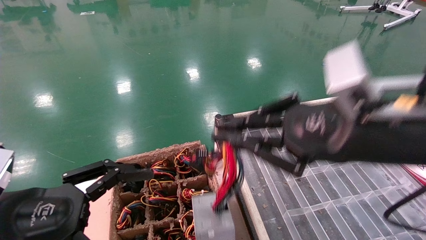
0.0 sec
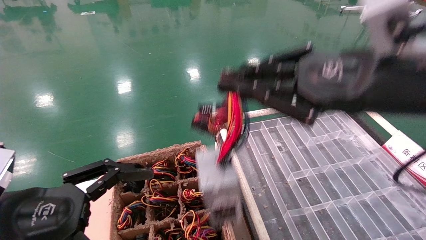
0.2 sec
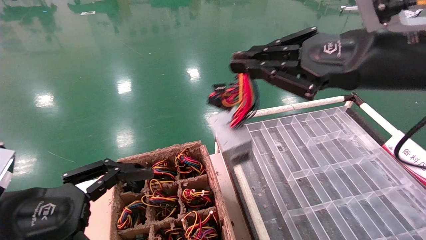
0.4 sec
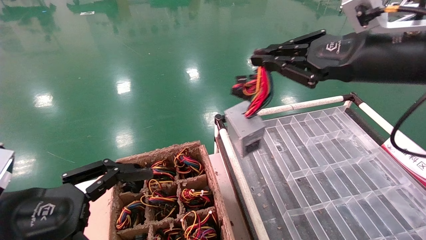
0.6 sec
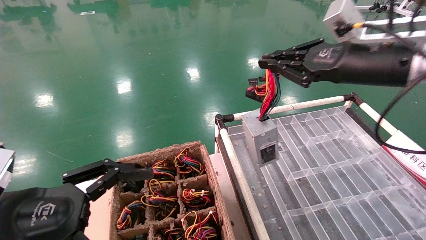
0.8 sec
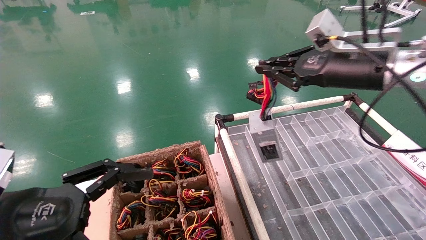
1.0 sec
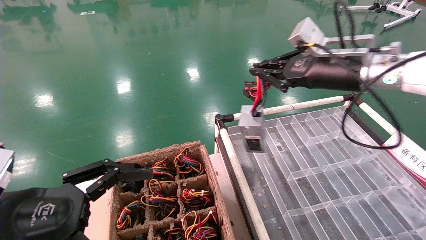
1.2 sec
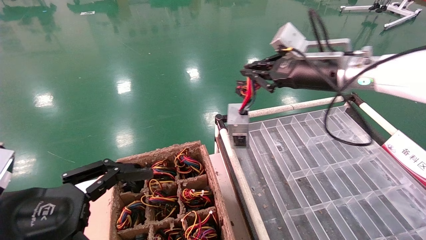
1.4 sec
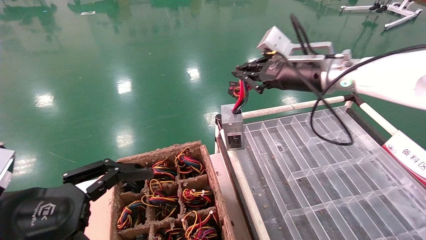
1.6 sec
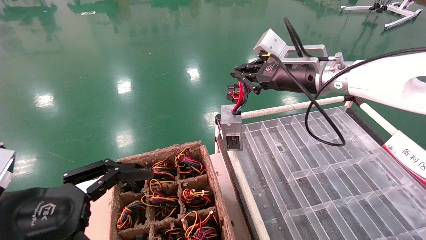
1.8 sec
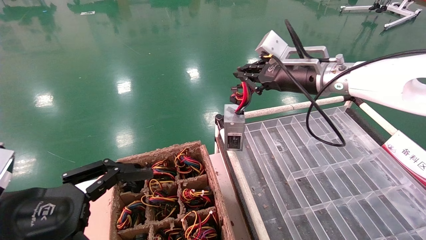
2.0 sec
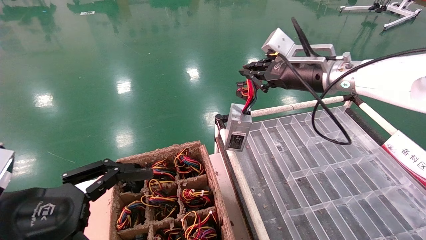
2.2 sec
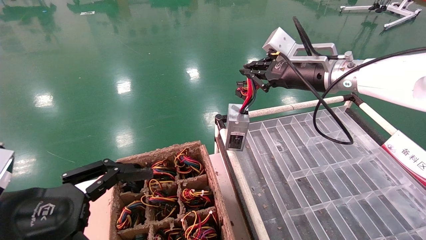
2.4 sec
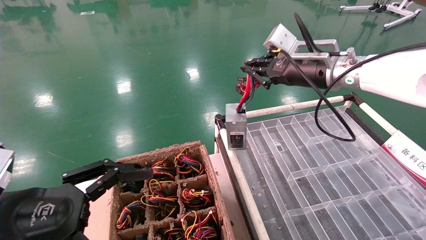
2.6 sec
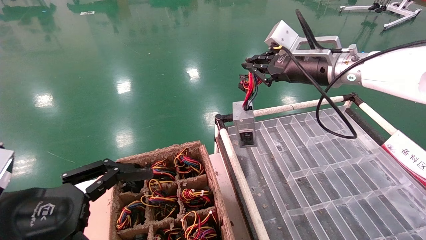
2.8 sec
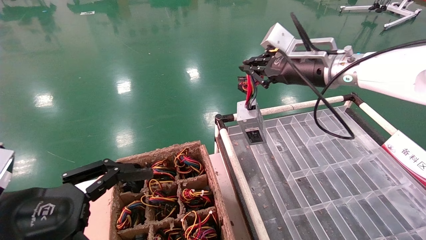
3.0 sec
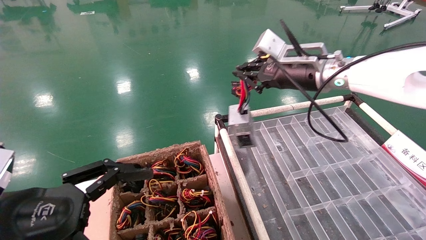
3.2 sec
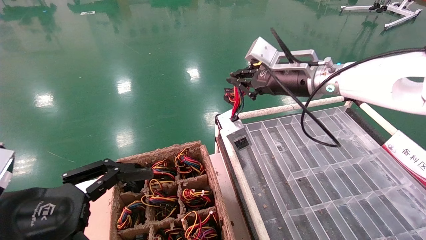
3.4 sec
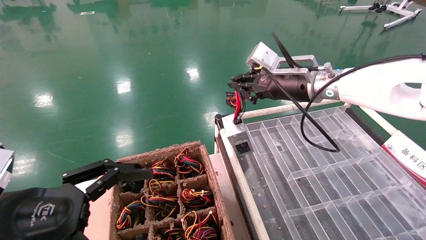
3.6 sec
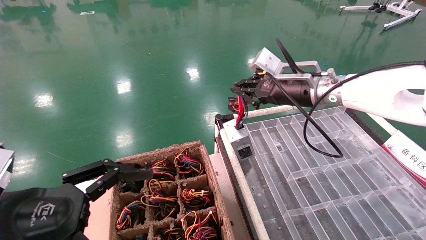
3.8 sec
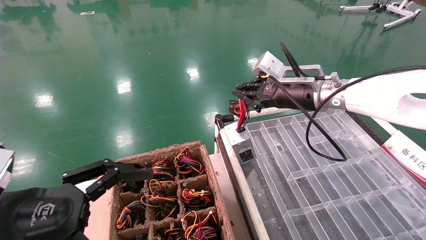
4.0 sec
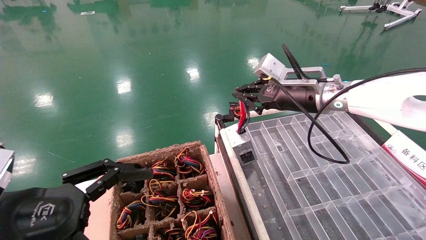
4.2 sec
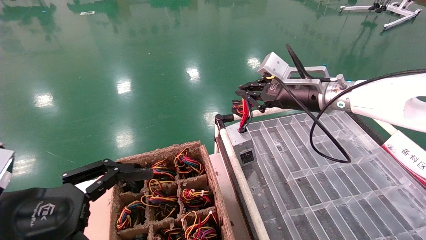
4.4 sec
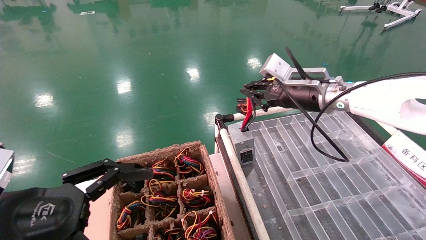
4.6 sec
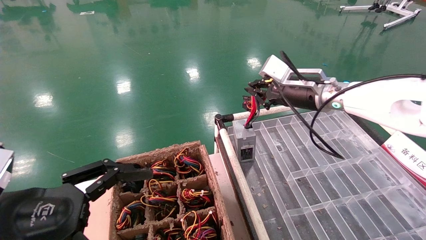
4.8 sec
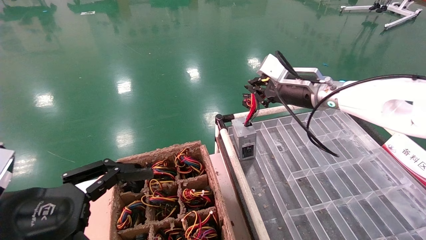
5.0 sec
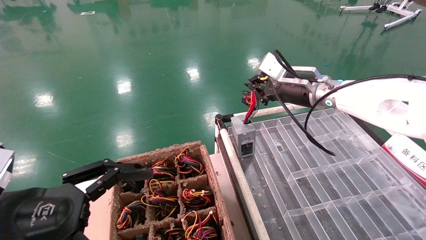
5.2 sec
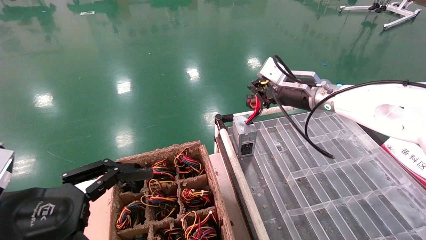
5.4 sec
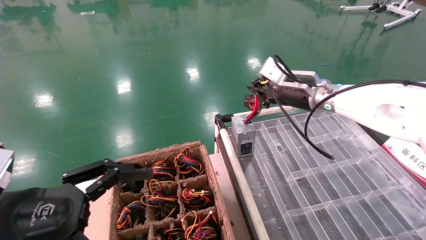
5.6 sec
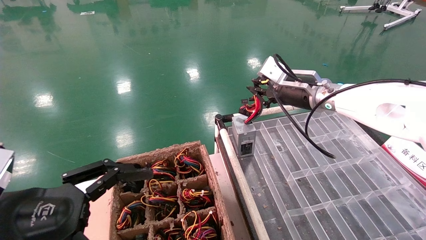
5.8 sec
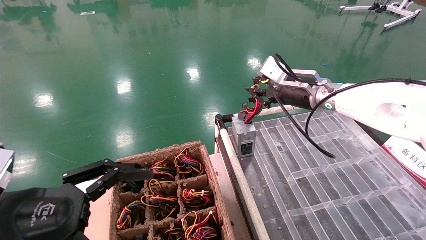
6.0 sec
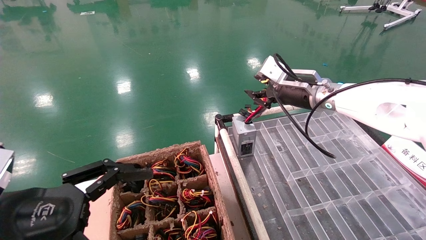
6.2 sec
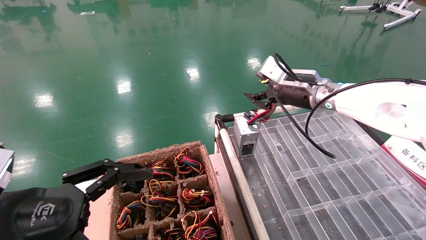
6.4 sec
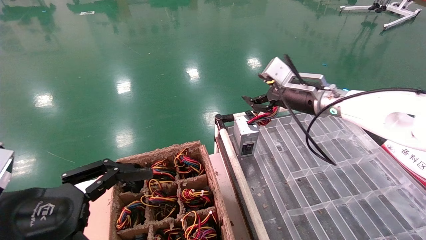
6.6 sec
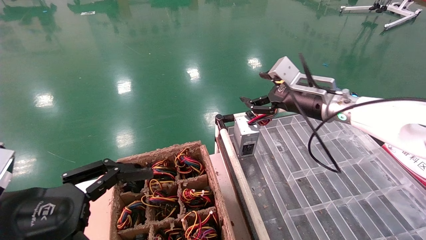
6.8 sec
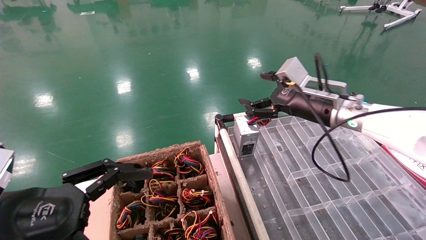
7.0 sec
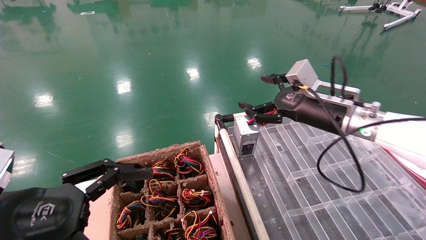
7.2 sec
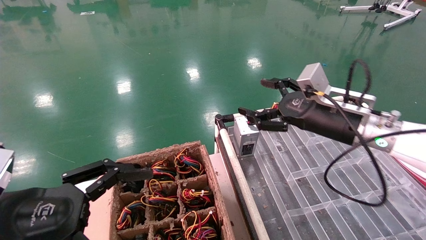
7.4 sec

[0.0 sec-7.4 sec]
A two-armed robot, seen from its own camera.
Step, 0.0 sec to 6.0 sec: Place the power supply on the operating table.
0.0 sec to 1.4 sec: The right gripper is displaced forward by approximately 20 cm.
1.4 sec to 4.4 sec: The grippers make only small movements.
4.4 sec to 6.0 sec: The grippers make only small movements.
6.0 sec to 7.4 sec: The right gripper goes some 10 cm backward, and opens.

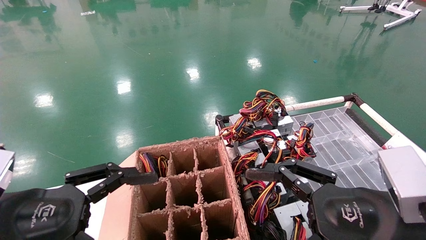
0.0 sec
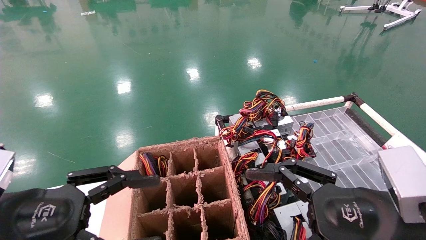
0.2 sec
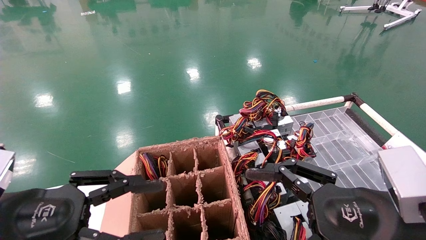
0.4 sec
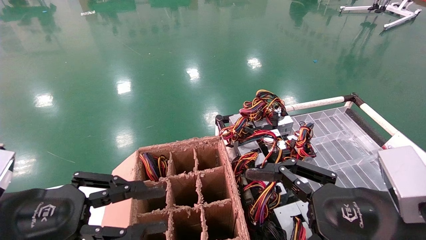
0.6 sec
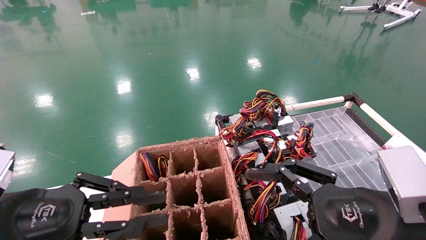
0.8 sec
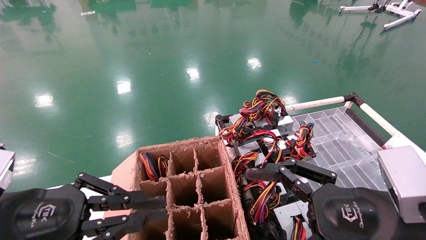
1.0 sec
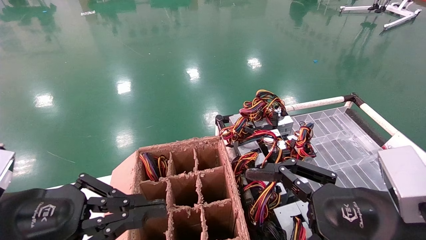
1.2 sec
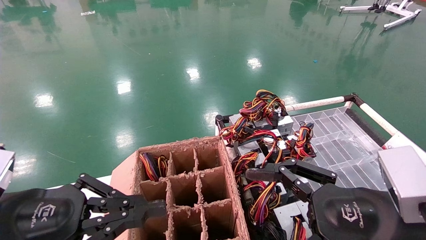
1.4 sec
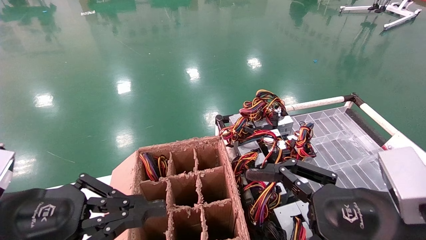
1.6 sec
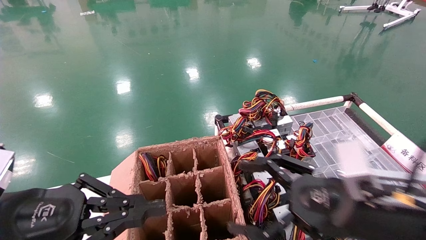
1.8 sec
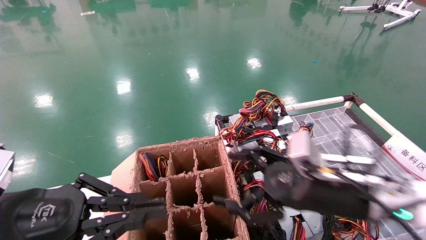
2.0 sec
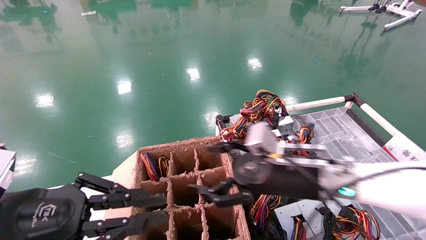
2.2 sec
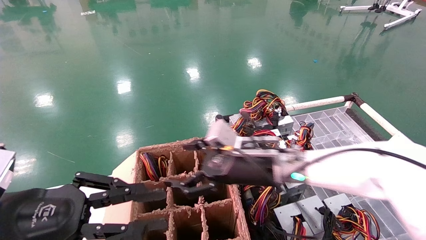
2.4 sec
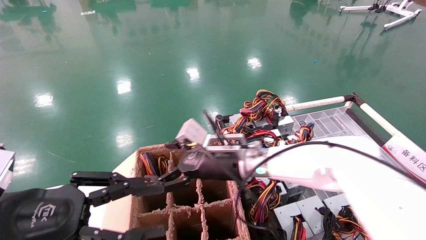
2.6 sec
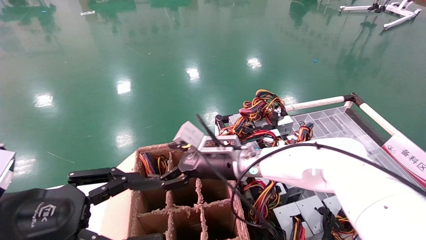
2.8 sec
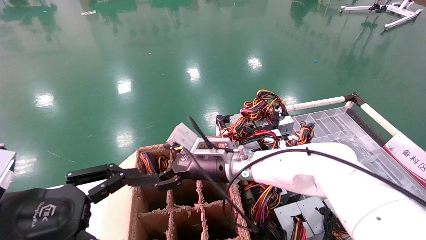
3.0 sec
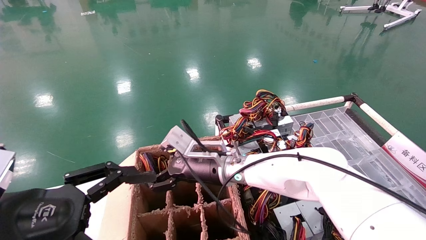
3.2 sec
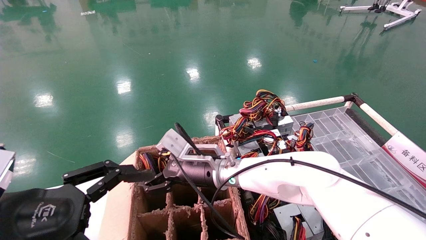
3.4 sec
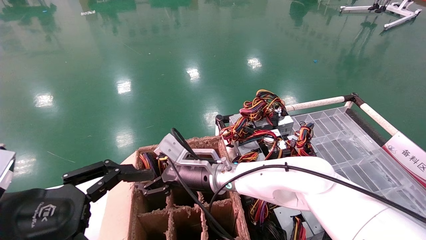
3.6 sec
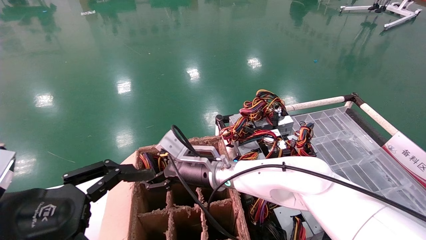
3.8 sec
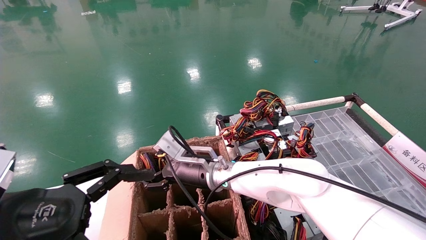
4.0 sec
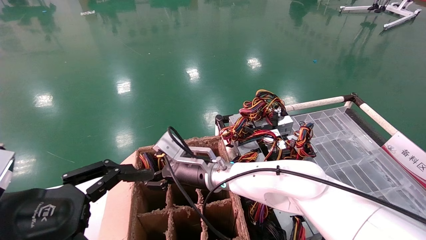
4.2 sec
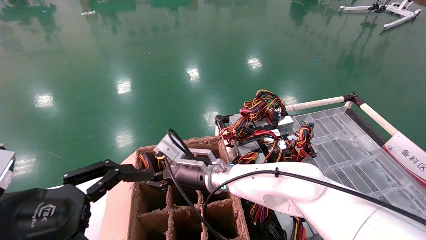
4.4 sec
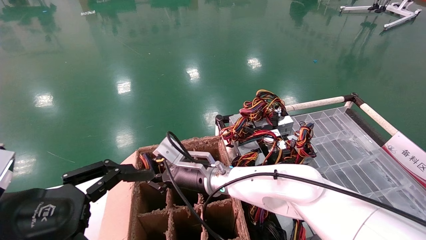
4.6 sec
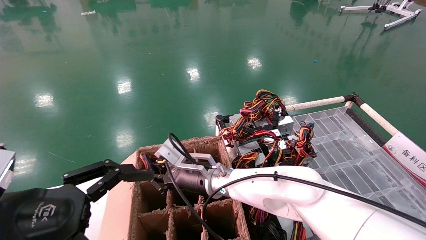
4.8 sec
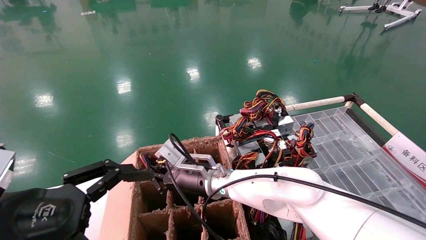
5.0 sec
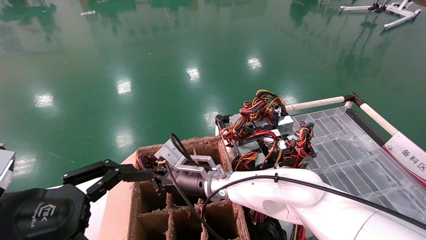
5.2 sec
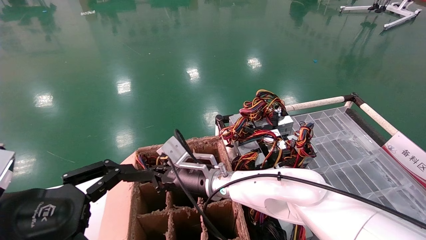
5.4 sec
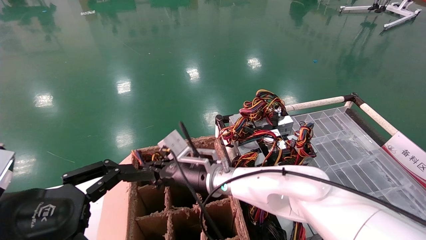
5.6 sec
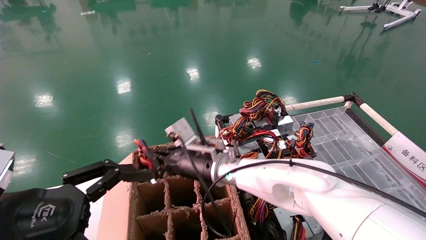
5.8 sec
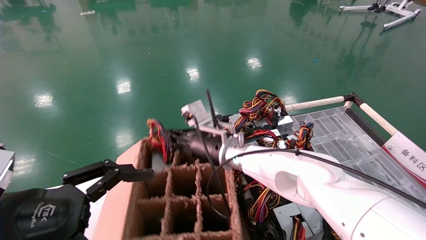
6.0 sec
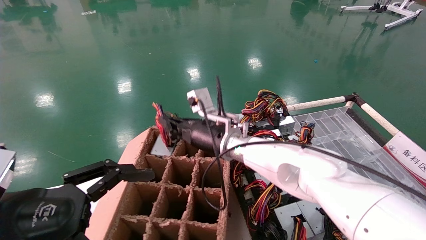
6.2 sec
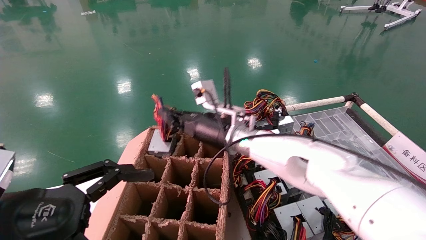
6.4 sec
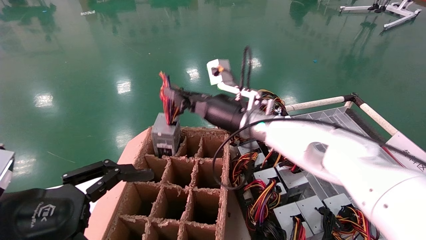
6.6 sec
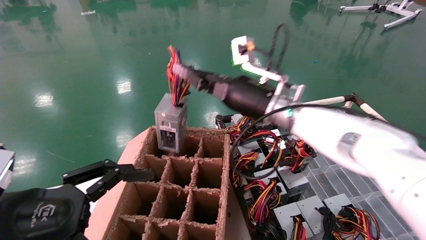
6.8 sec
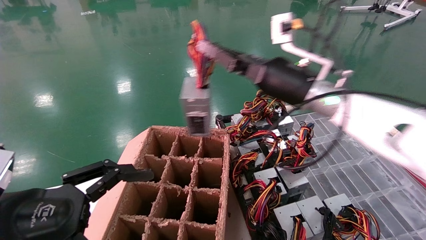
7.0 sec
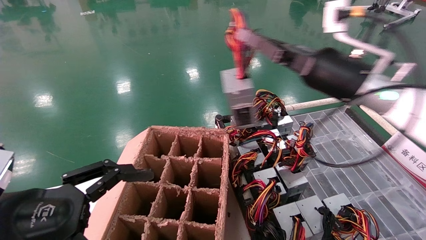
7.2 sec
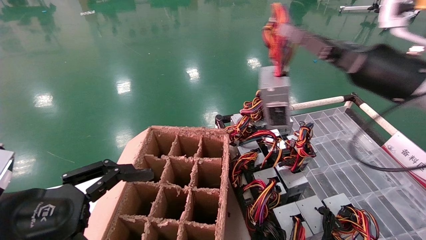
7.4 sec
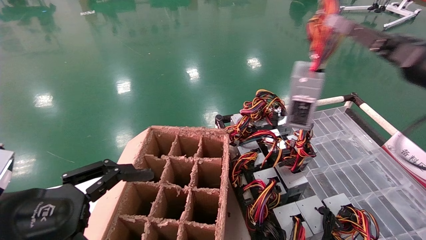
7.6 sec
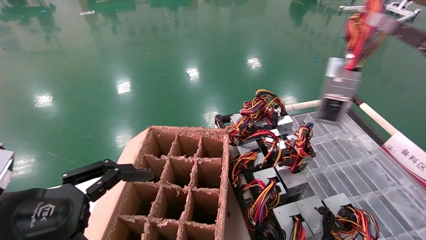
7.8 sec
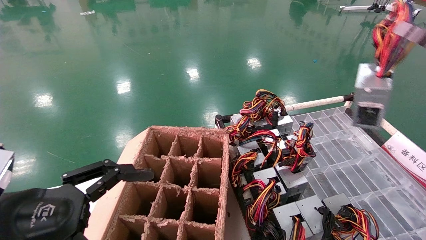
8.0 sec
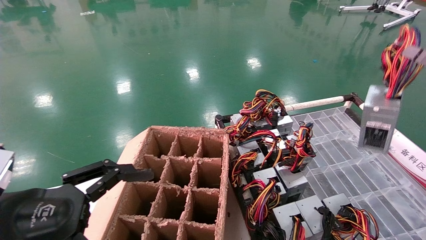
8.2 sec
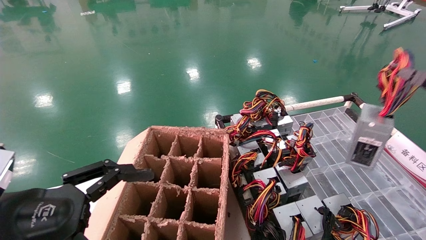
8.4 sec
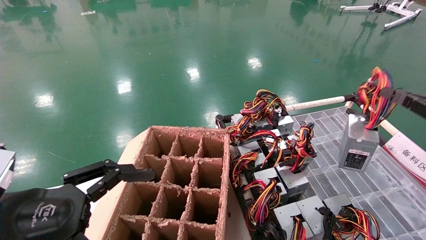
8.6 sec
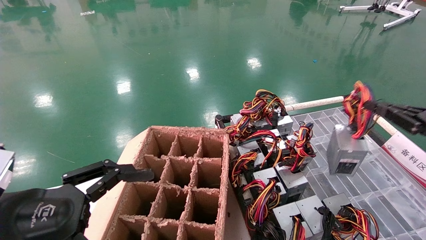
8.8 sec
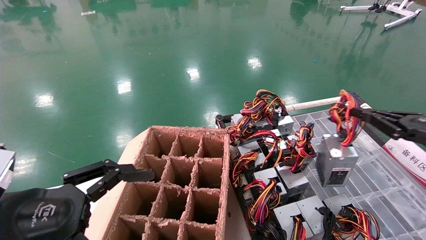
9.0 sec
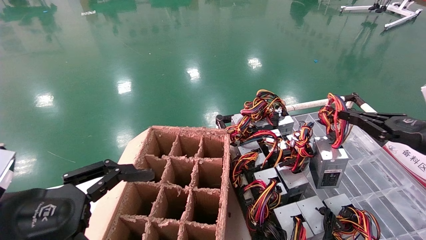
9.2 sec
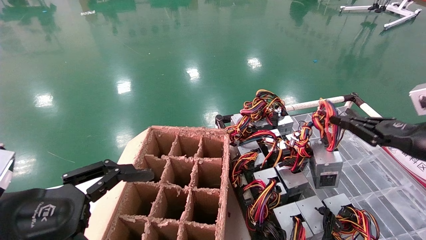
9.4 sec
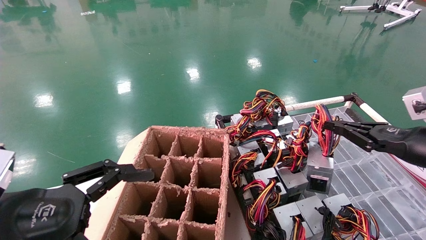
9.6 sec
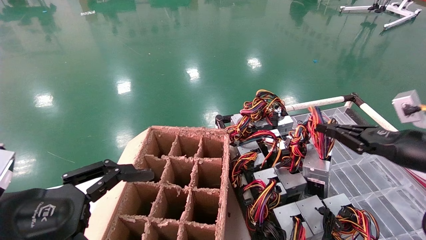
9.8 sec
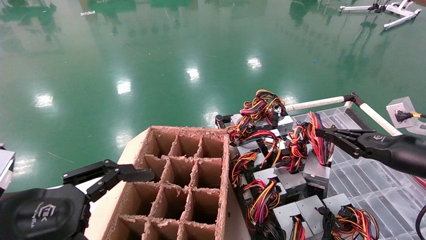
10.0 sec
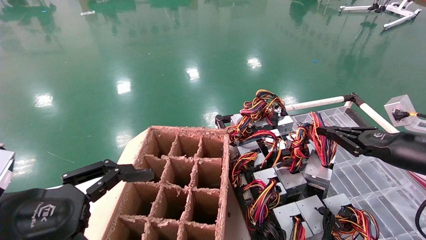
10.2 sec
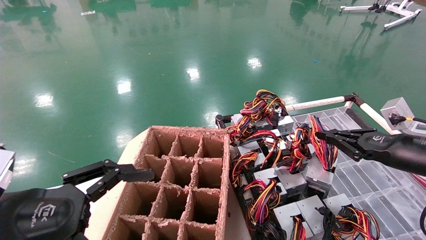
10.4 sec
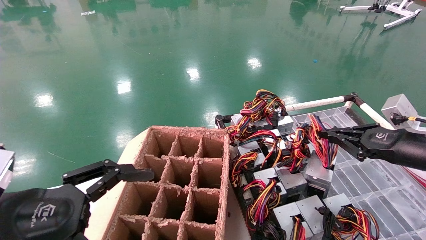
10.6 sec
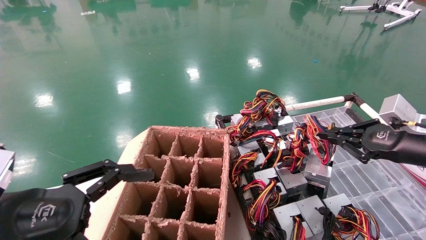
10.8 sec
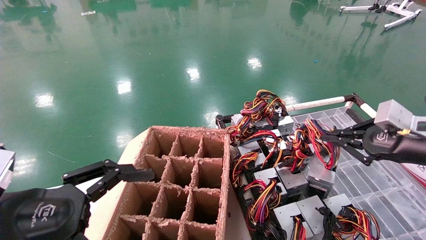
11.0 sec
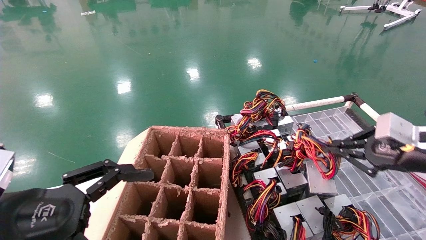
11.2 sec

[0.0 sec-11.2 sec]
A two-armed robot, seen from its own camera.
Step, 1.4 sec to 5.4 sec: Grab and lift the power supply from the large box.
0.0 sec to 1.6 sec: The left gripper closes its fingers.
1.6 sec to 3.2 sec: The right gripper shifts some 30 cm to the left and forward. The left gripper opens up.
3.2 sec to 4.8 sec: The right gripper closes.
4.8 sec to 6.4 sec: The right gripper heads upward, covering some 10 cm.
6.4 sec to 8.0 sec: The right gripper heads to the right, covering approximately 40 cm.
8.0 sec to 9.6 sec: The right gripper heads downward, covering some 10 cm.
